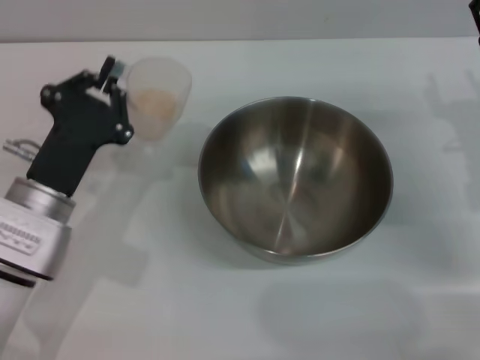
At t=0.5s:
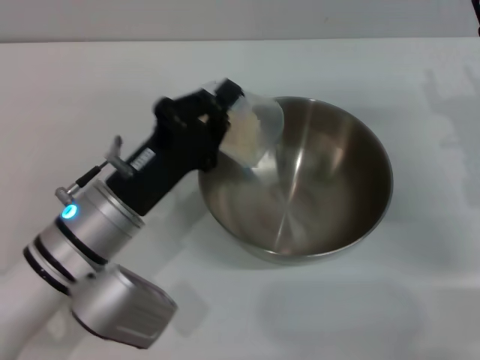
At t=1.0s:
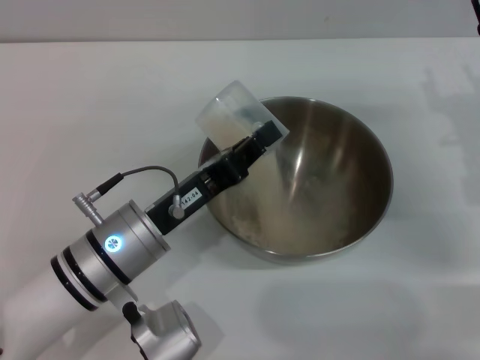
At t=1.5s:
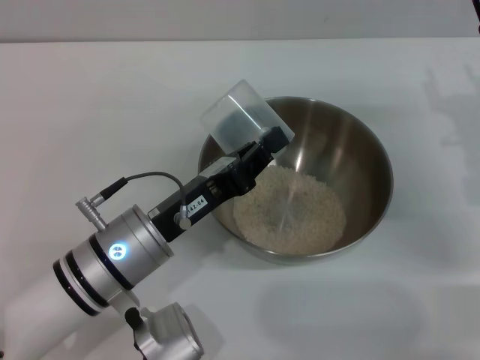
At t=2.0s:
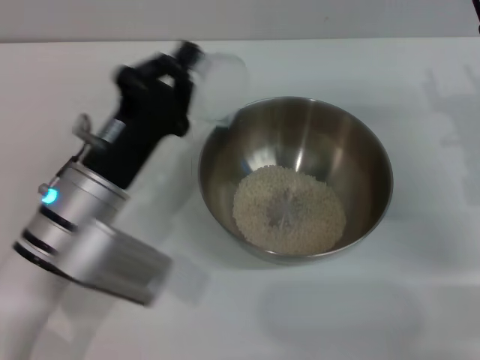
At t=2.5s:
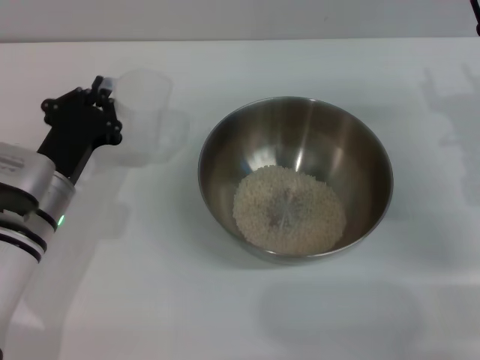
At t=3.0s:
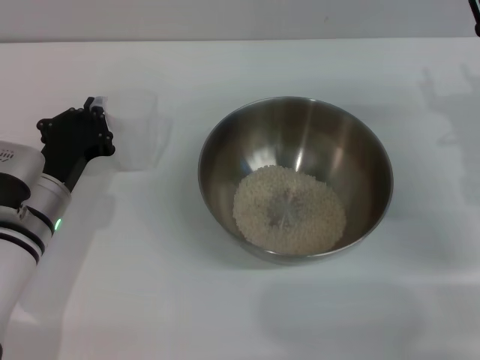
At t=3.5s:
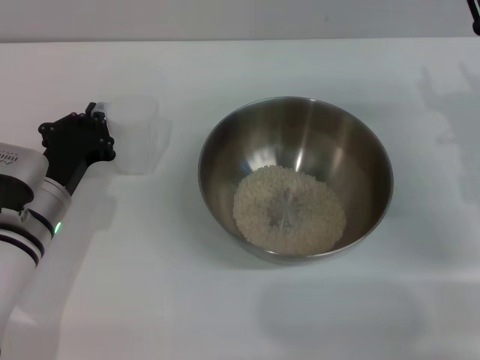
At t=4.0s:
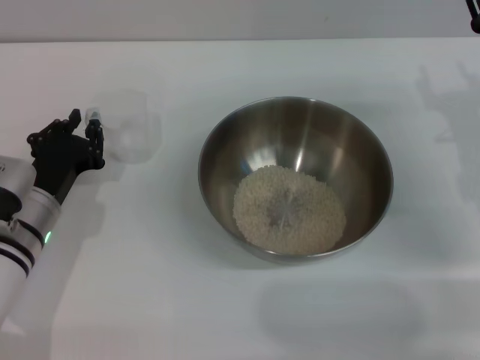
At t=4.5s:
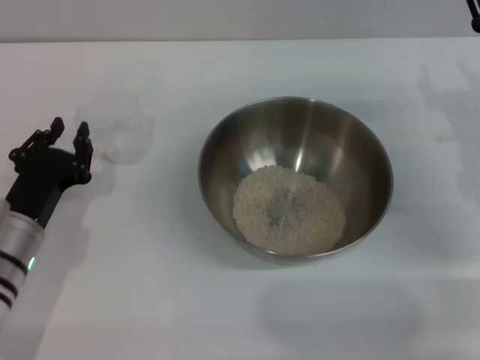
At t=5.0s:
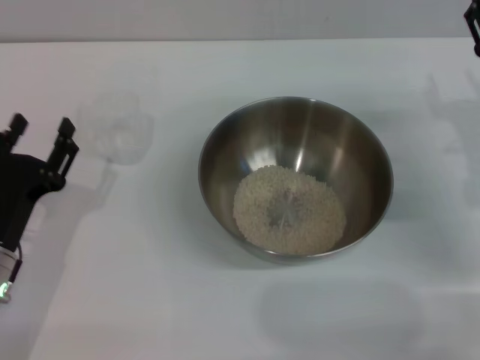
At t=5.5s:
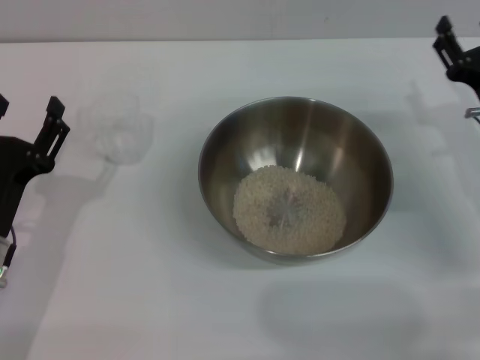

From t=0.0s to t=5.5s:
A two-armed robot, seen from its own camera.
Task of the whole recording: Place the bowl in the middle of the table with one hand and pour the rice from the grain cup into it with the other hand.
Step, from t=0.0s to t=2.0s: Pour the rice from the cup into the bowl with the left gripper.
Step, from t=2.5s to t=4.5s: Place the cup on the table with the left gripper.
From t=2.0s to t=3.5s: The left gripper is displaced to the left and downward by approximately 10 cm.
From t=3.5s to t=5.5s: The left gripper moves backward, roughly 5 cm, and opens.

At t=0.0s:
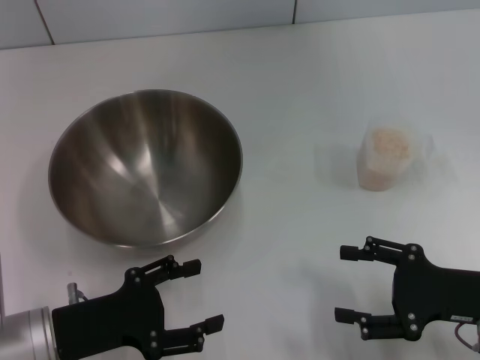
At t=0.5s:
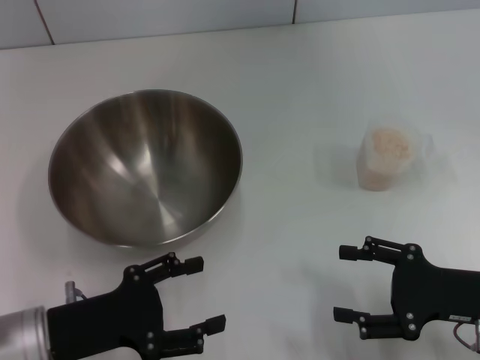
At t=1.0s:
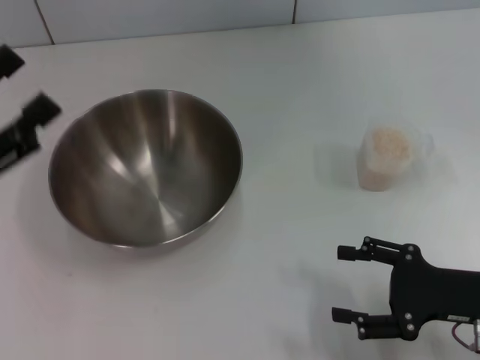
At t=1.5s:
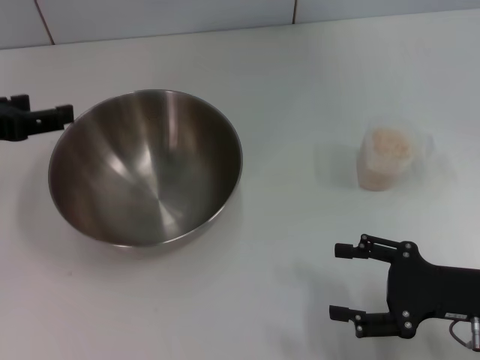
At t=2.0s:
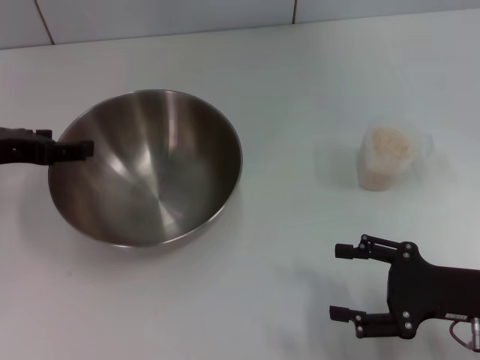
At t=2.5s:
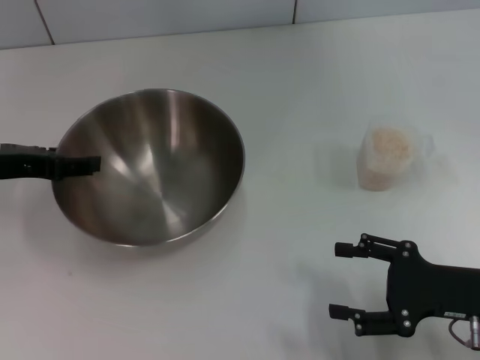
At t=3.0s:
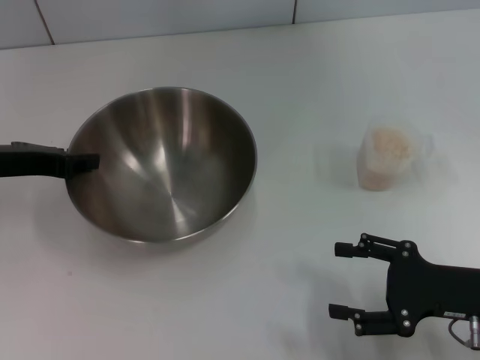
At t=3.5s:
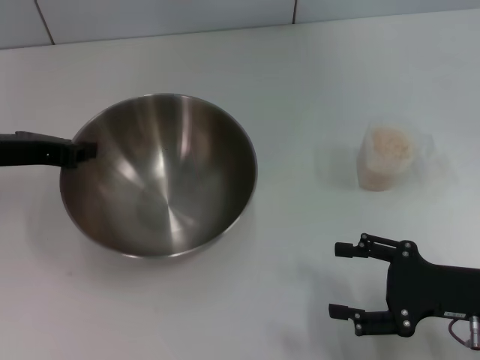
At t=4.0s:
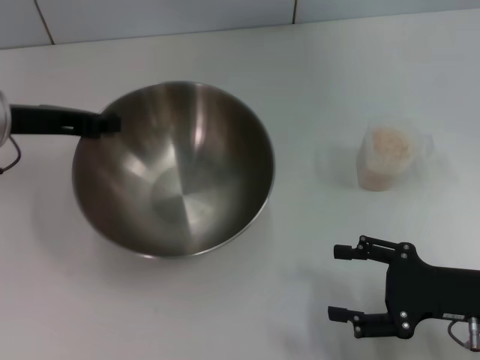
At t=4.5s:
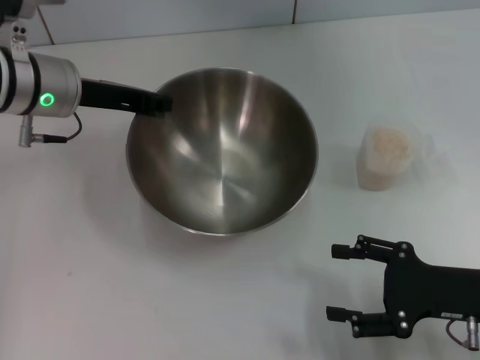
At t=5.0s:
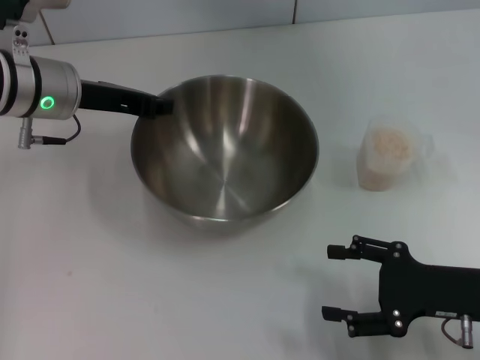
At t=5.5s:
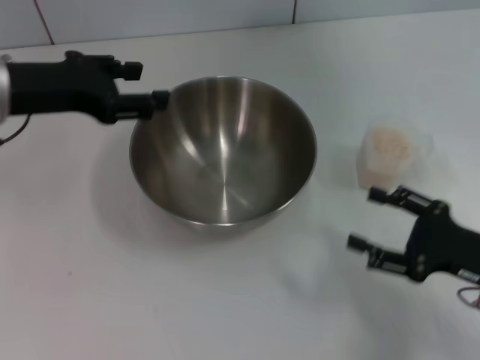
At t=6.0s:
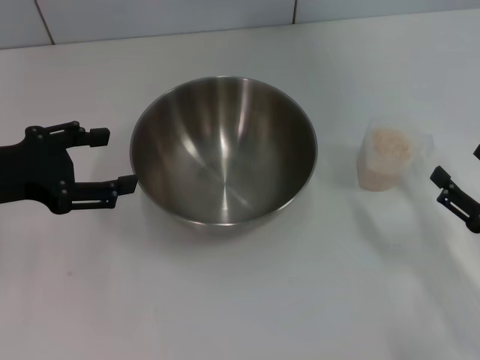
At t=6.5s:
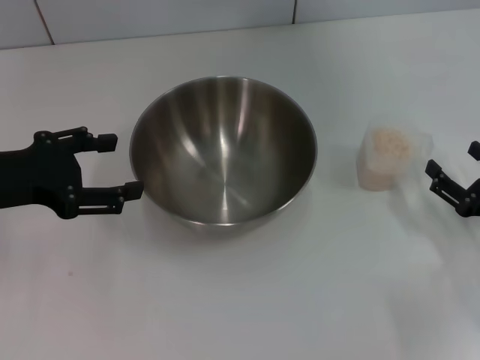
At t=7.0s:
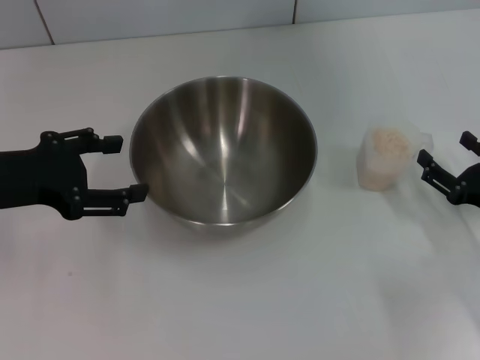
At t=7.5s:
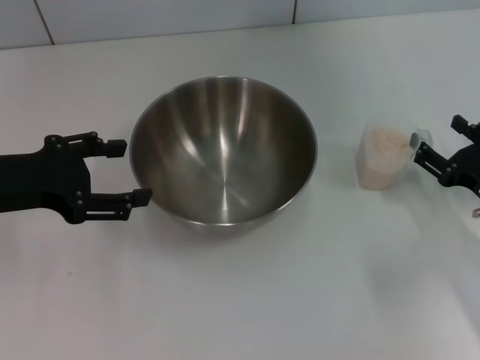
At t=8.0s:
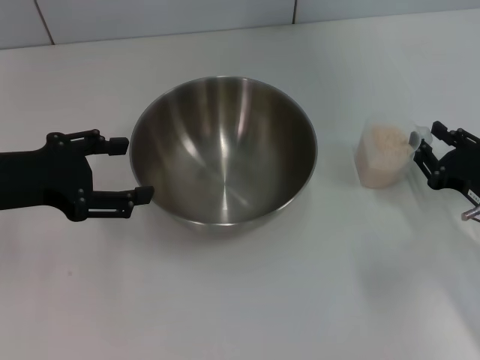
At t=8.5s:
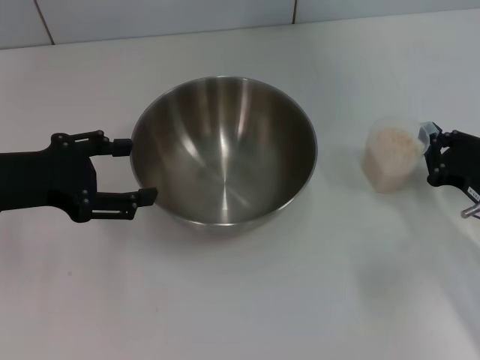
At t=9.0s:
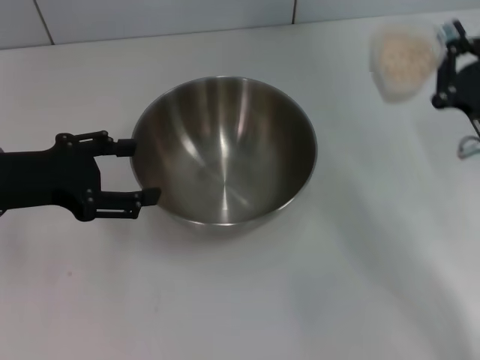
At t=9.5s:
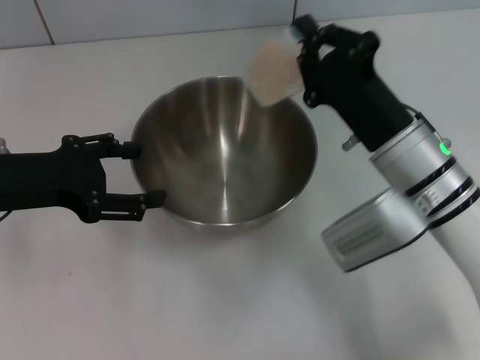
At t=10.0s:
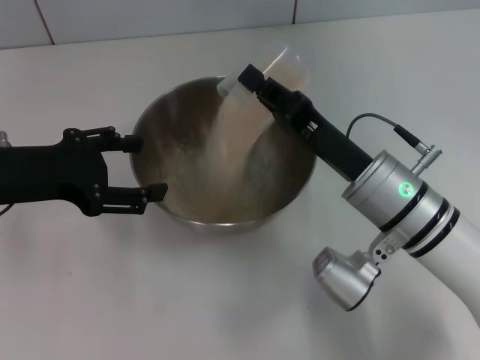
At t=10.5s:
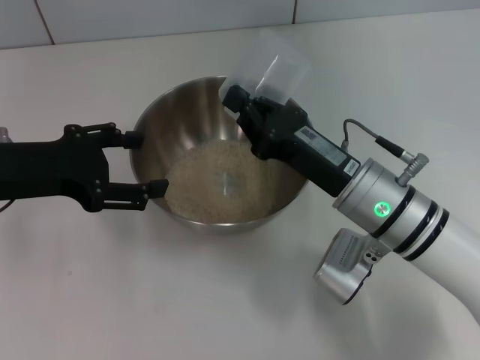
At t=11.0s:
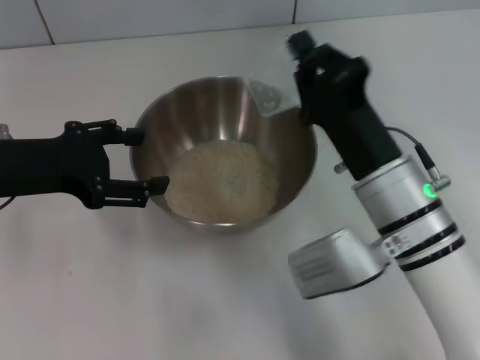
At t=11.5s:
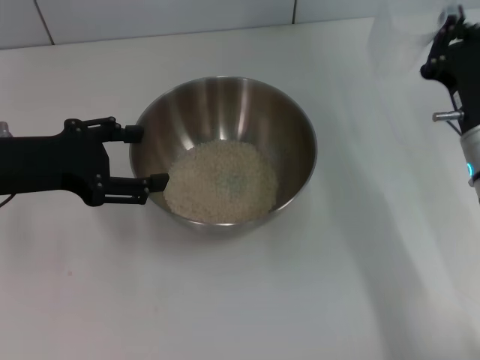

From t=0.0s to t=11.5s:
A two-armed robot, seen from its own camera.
Task of the whole recording: Place the bowl in the middle of the table with one hand and pour the rice from the grain cup into it with the other hand.
Step, from t=0.0s to t=3.5s: Pick up the bowl with the left gripper.
Step, from t=4.0s to t=5.5s: Place the bowl in the center of view with the left gripper.
Step, from t=6.0s to t=9.0s: Pick up the cup with rice in it with the right gripper.
Step, from t=9.5s to t=11.0s: Pour the rice from the cup into the bowl with the right gripper.
From t=0.0s to t=2.0s: The left gripper moves forward and upward, about 20 cm.
From t=2.0s to t=4.0s: The left gripper closes up.
From t=4.0s to t=6.0s: The left gripper goes about 10 cm backward, and opens up, while the right gripper shifts by approximately 5 cm.
From t=6.0s to t=7.5s: The right gripper travels forward by approximately 5 cm.
From t=7.5s to t=9.5s: The right gripper is displaced to the left and upward by roughly 15 cm, and closes.
From t=9.5s to t=11.5s: The right gripper moves to the right, approximately 5 cm.

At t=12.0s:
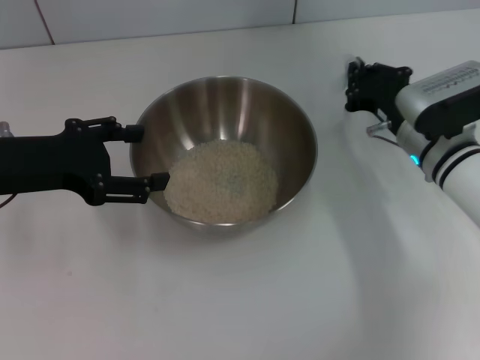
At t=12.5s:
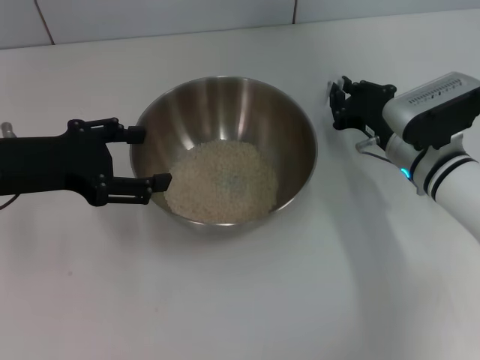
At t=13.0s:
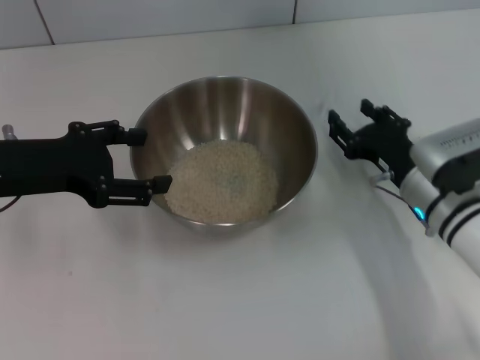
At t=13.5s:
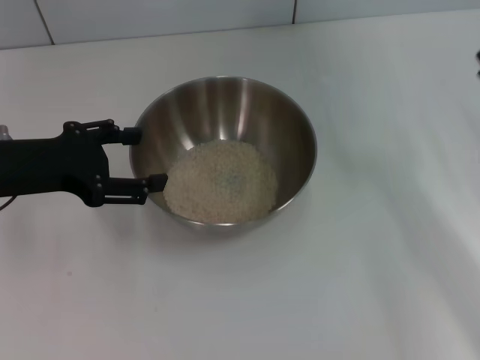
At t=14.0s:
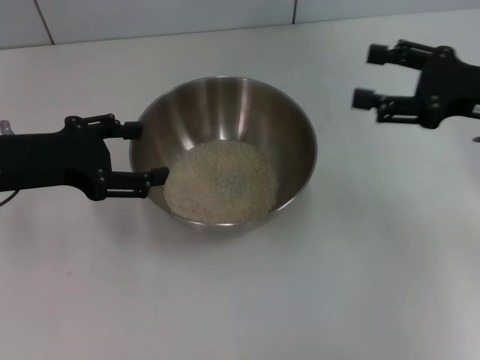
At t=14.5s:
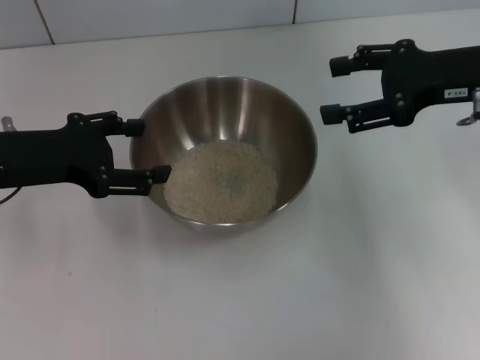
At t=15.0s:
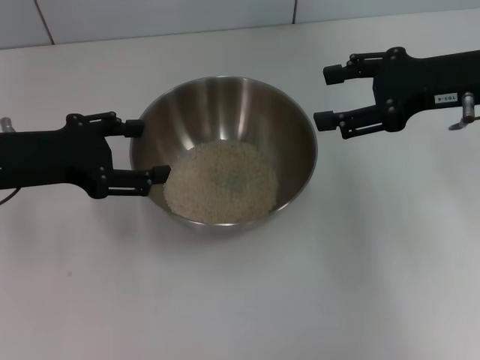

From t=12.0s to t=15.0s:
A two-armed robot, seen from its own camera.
Task of the whole recording: Place the bowl in the middle of the table with one hand and pour the rice from the grain cup into it with the other hand.
Step, from t=12.0s to t=13.0s: Place the cup on the table with the right gripper.
From t=12.0s to t=13.5s: The right gripper is displaced backward and to the right by about 15 cm, and opens.
From t=13.5s to t=15.0s: The right gripper goes about 15 cm upward, forward and to the left.
